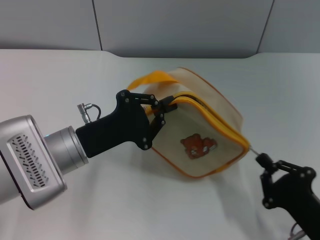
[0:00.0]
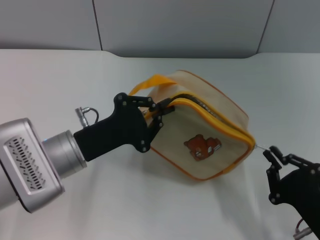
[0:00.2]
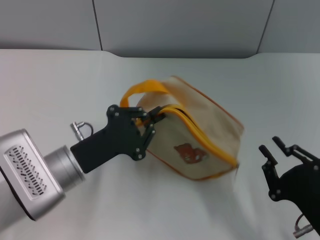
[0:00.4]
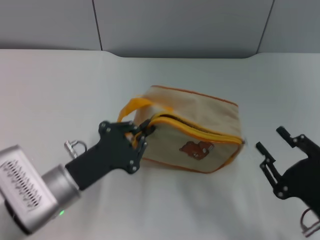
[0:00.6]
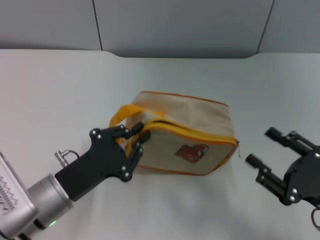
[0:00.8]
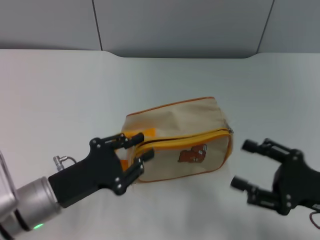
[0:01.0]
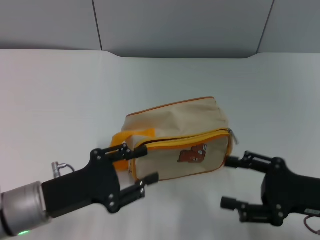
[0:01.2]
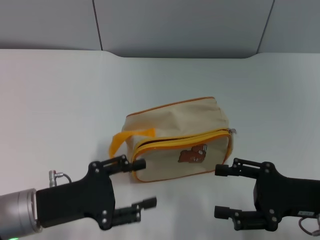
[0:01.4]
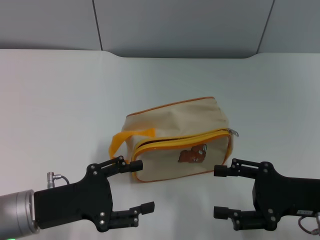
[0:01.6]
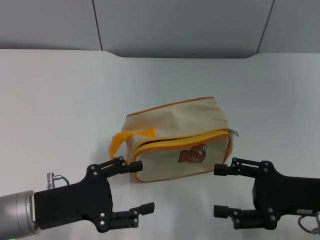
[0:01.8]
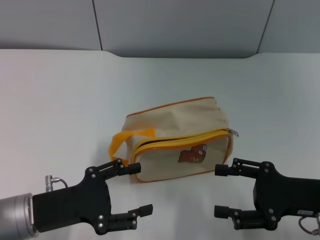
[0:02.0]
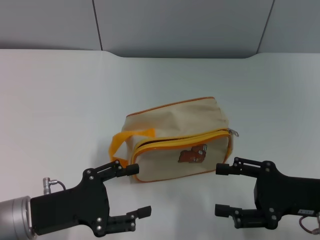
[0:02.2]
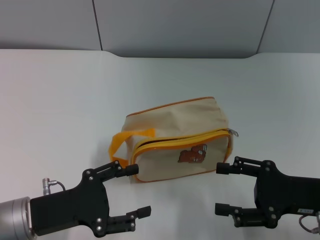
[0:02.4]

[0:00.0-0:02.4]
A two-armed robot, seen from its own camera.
Step, 0:00.6 to 0:01.2: Place the bag on the table with left gripper.
0:00.0 to 0:01.2: The right gripper moves forward and upward, about 10 cm, and opens its fingers. Meanwhile the left gripper moves backward, about 5 cm.
0:01.2 to 0:02.4: The left gripper opens up.
